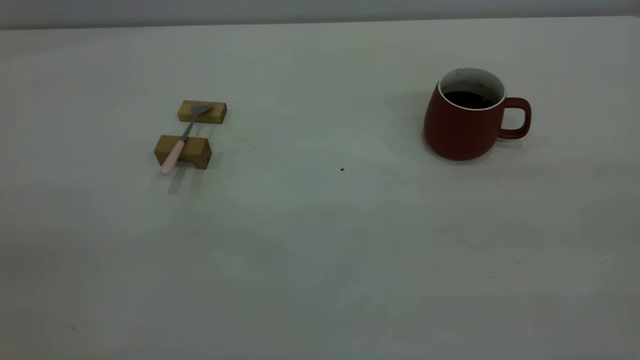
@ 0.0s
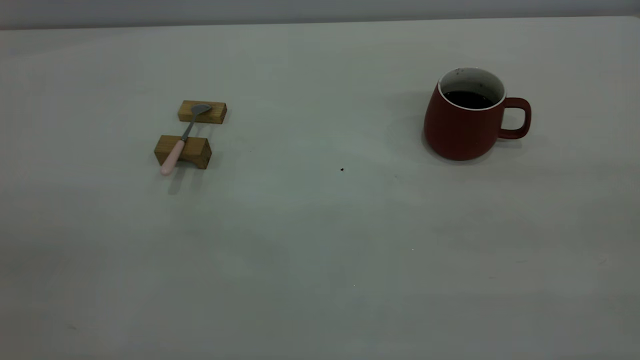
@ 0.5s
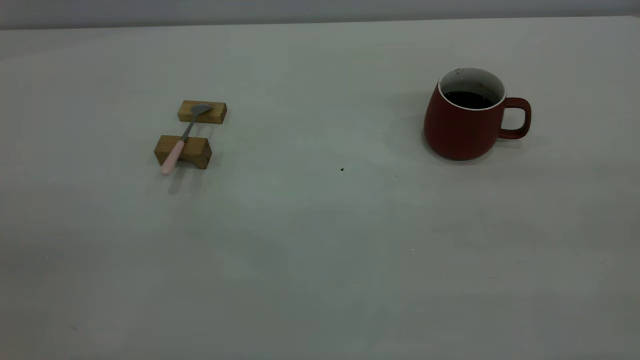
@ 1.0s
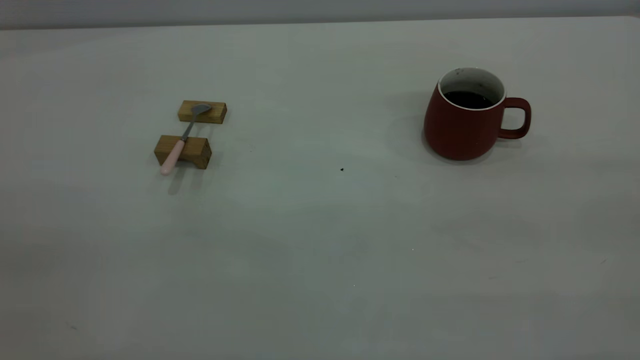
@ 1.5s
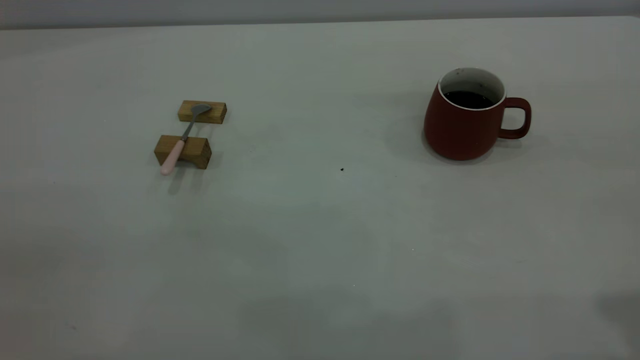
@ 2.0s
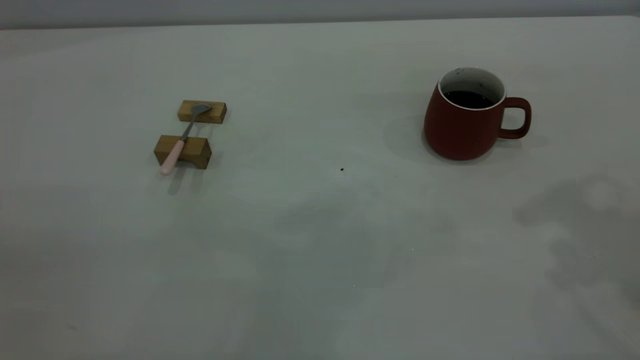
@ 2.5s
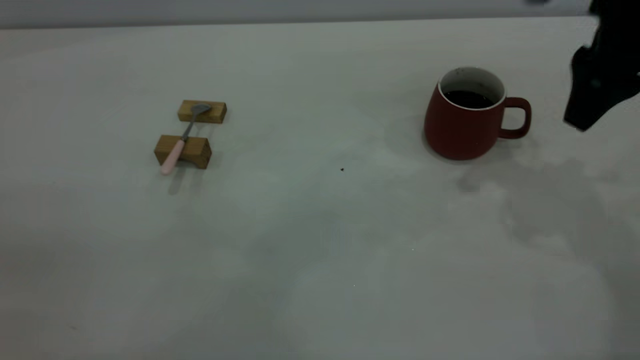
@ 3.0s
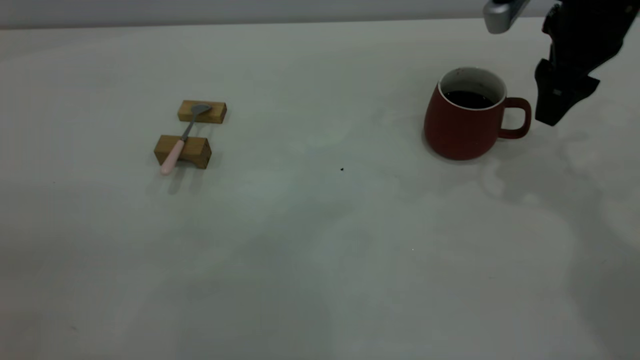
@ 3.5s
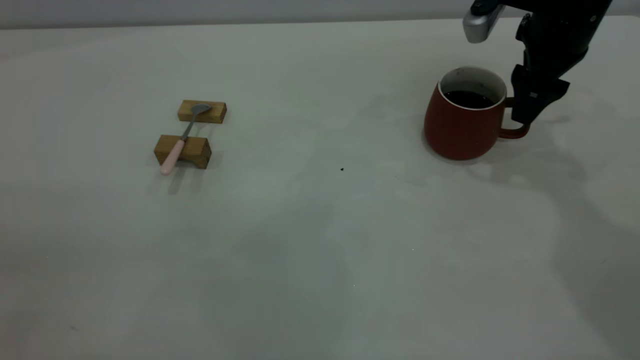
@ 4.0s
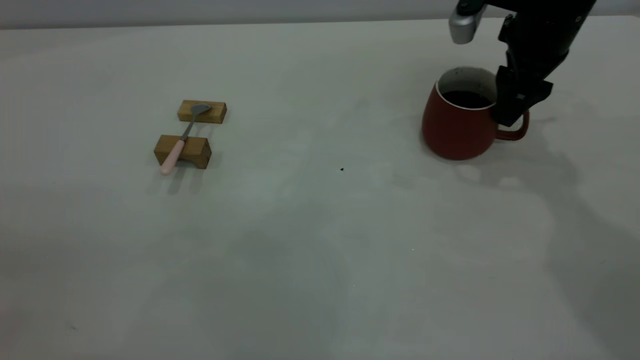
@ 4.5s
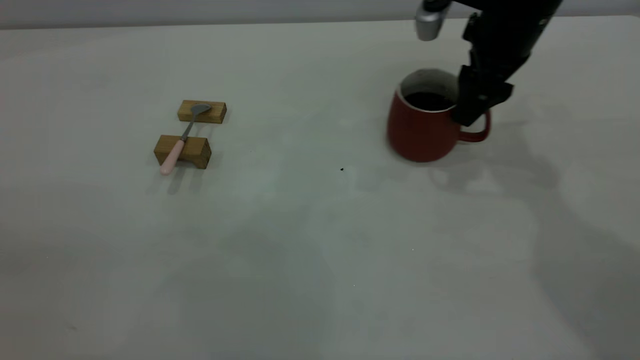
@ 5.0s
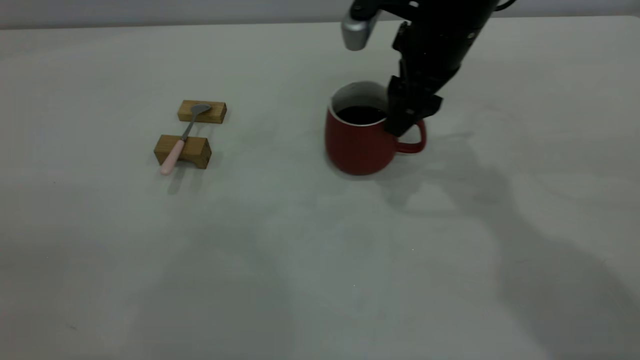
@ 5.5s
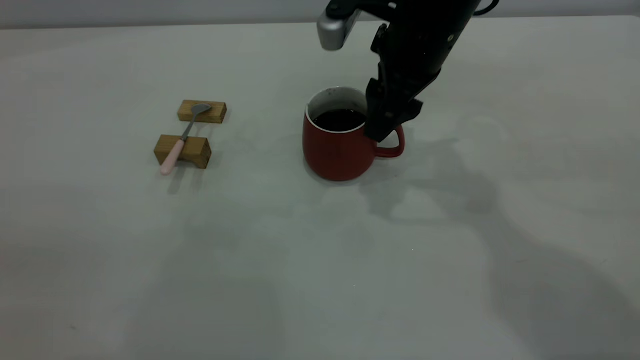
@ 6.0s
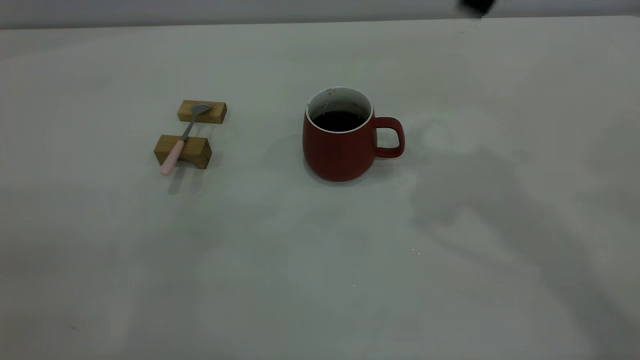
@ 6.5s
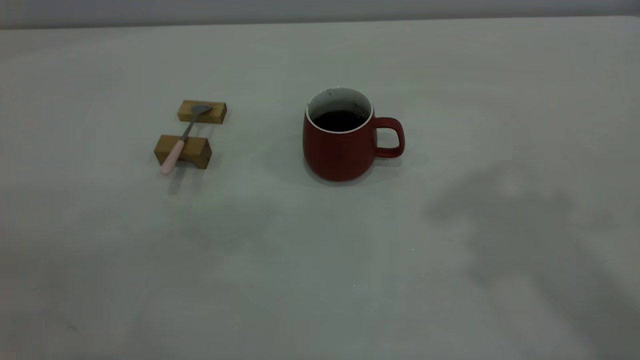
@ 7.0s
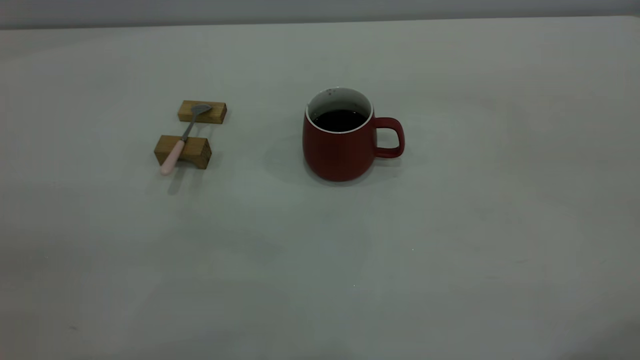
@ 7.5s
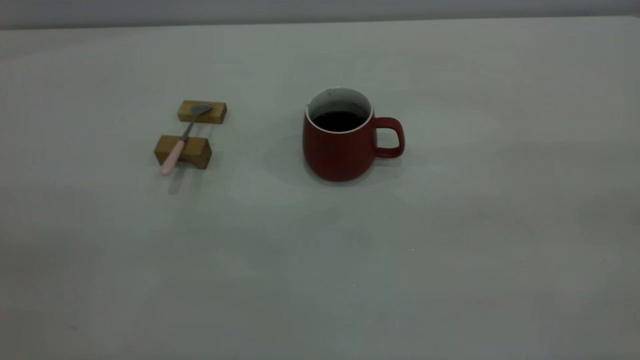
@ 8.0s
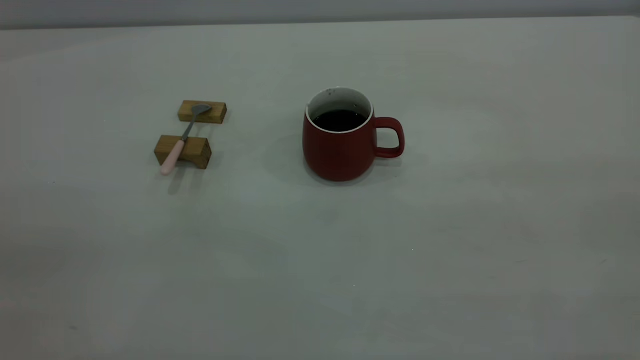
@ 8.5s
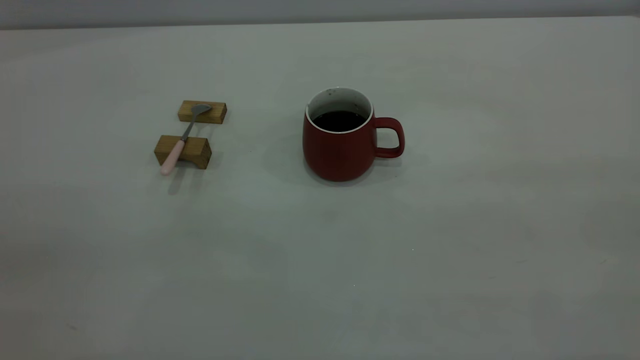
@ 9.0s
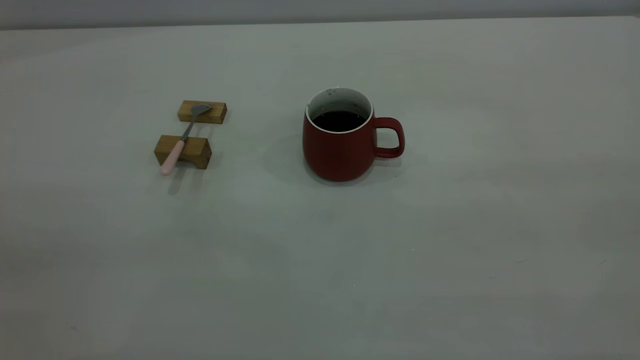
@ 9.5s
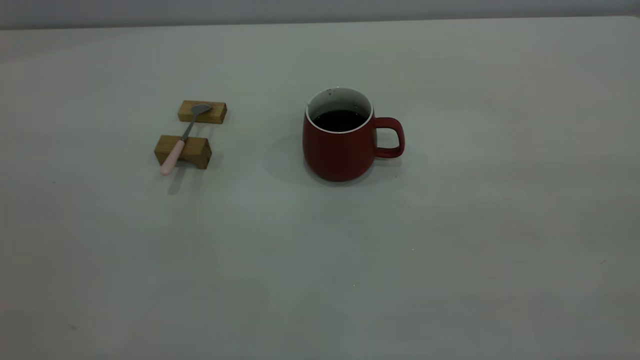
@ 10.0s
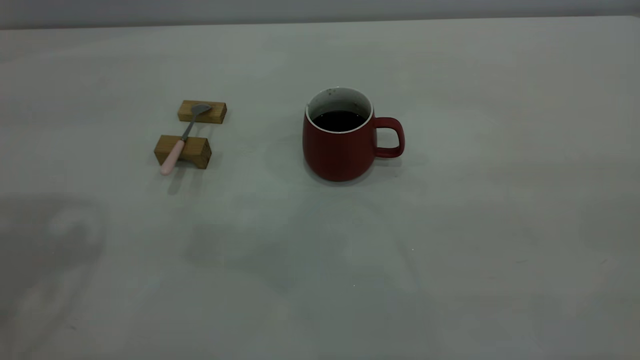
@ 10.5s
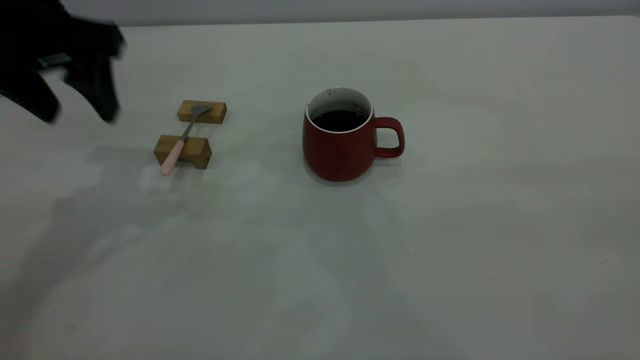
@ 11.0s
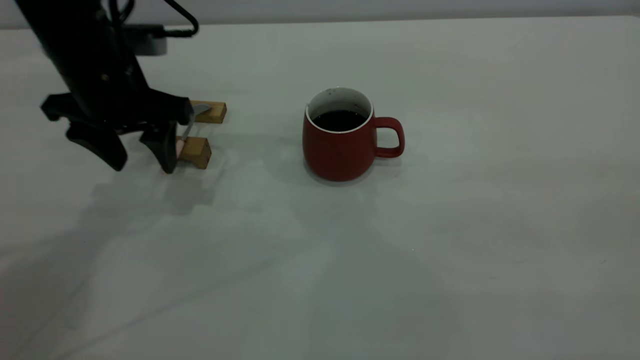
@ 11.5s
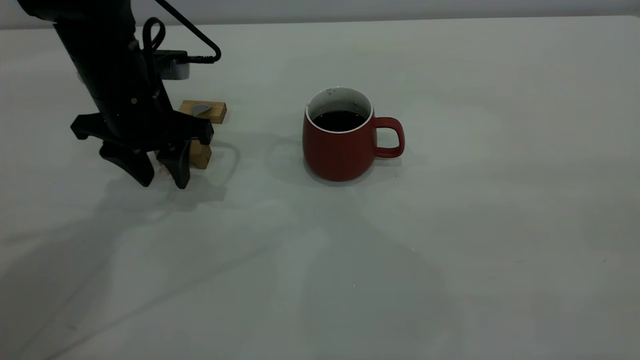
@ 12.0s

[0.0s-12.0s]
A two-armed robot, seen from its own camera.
Step, 0.0s to 6.0s: Move the cup with coffee to the center of view.
2.0s to 4.0s: The right gripper moves forward and downward, approximately 35 cm.
4.0s to 6.0s: The right gripper is displaced to the left by approximately 15 cm.
6.0s to 8.0s: The right gripper is displaced backward, upward and to the right by some 50 cm.
10.0s to 12.0s: The left gripper is displaced forward and downward by about 40 cm, and closes.

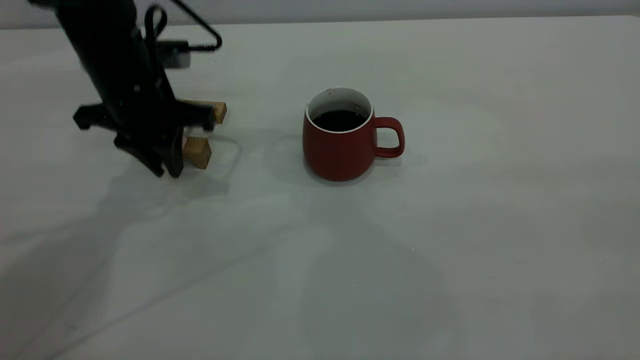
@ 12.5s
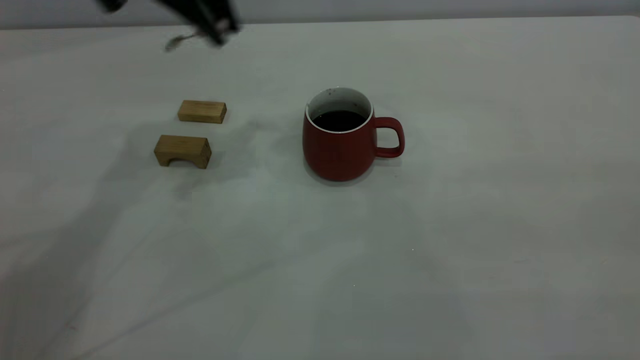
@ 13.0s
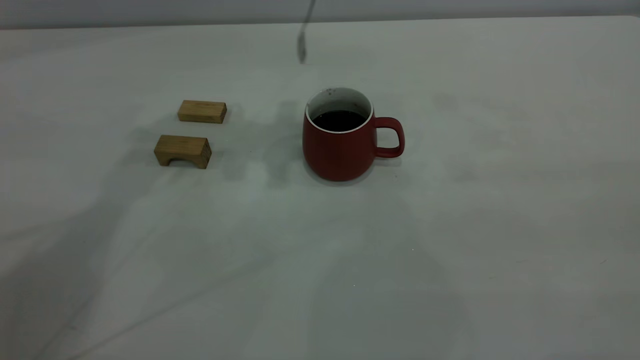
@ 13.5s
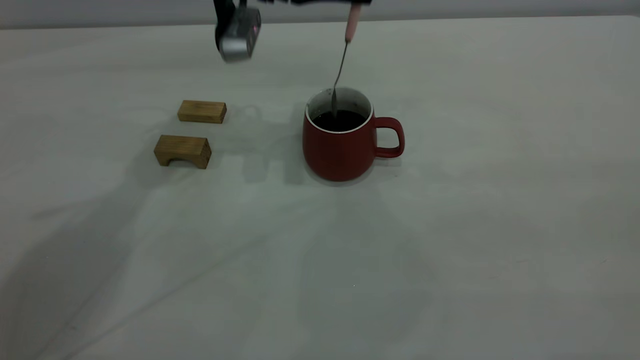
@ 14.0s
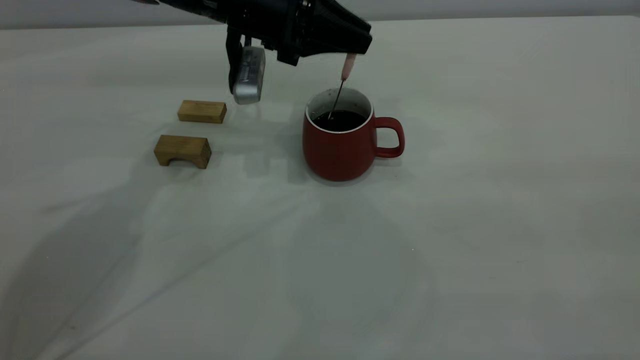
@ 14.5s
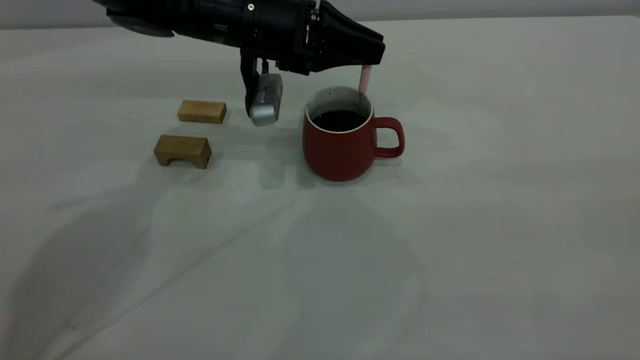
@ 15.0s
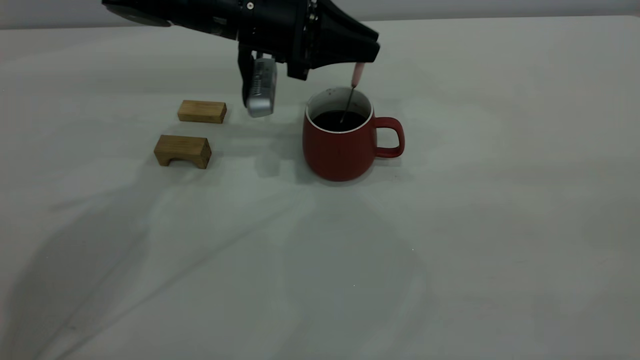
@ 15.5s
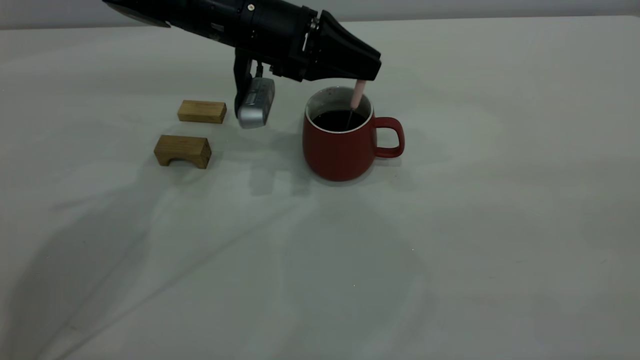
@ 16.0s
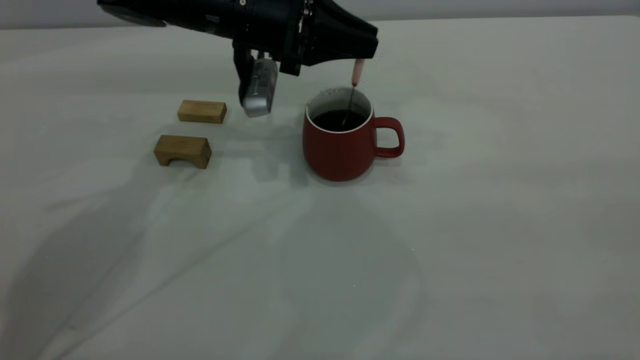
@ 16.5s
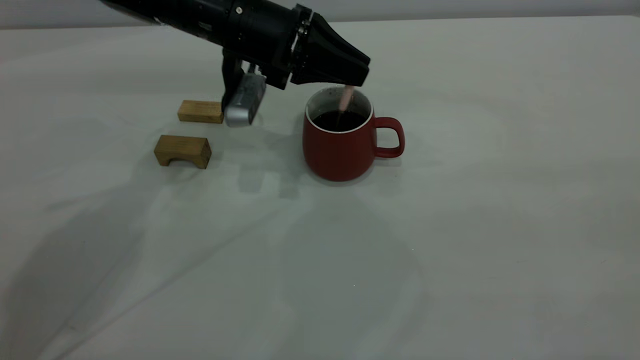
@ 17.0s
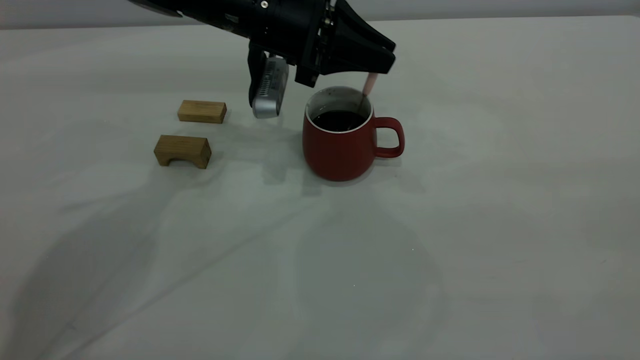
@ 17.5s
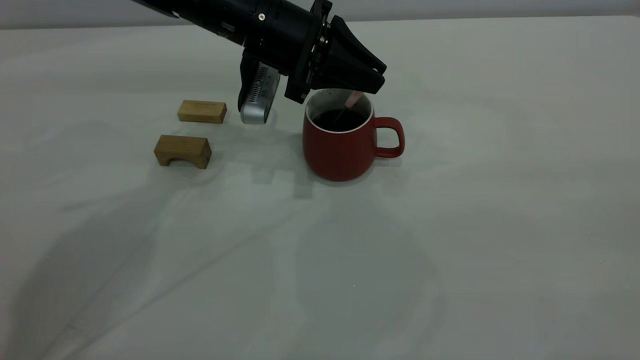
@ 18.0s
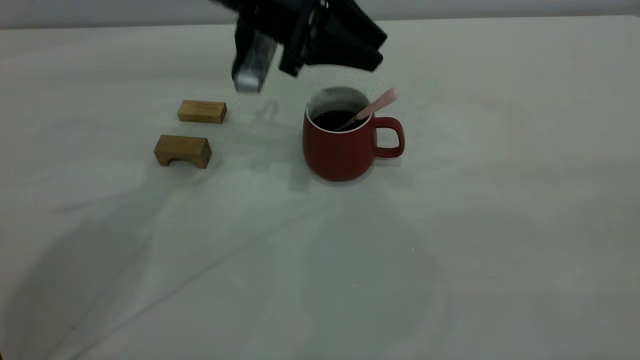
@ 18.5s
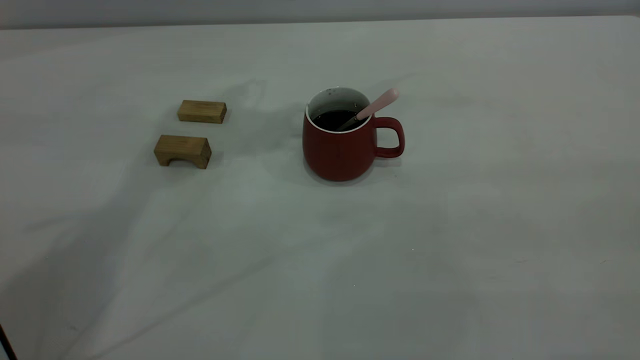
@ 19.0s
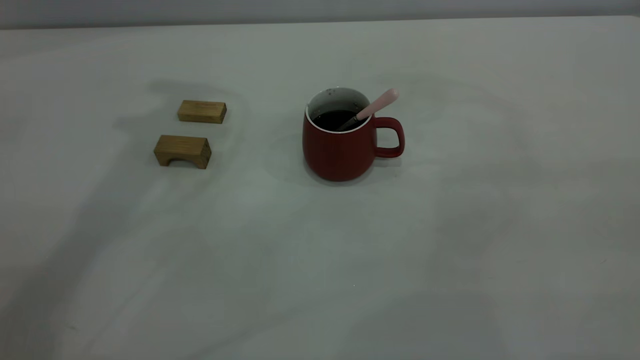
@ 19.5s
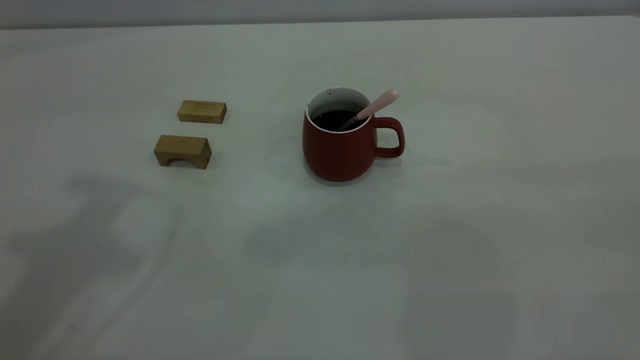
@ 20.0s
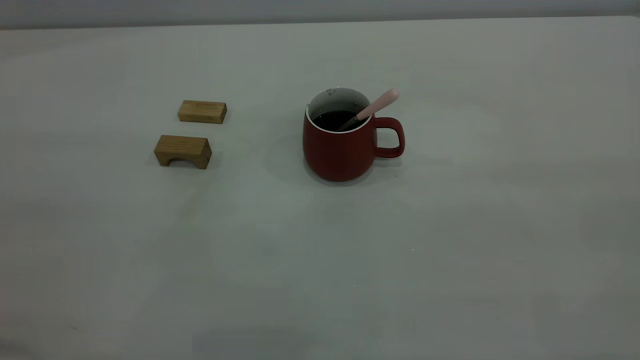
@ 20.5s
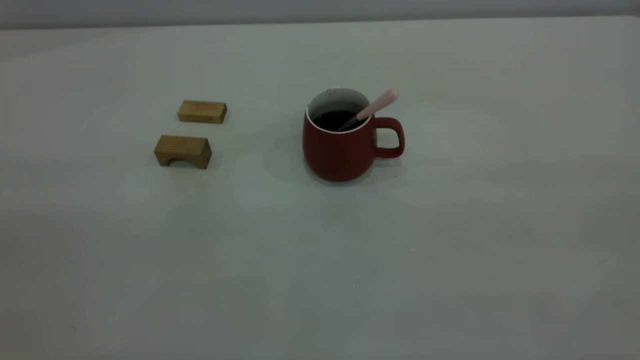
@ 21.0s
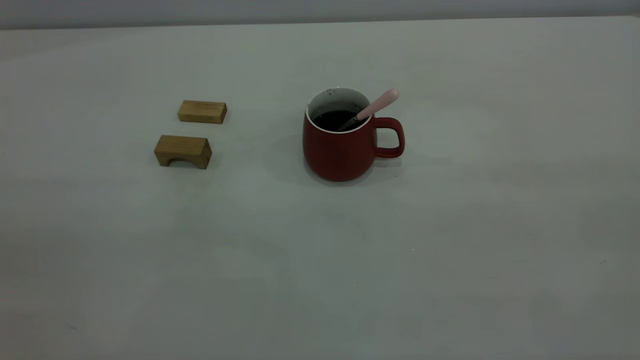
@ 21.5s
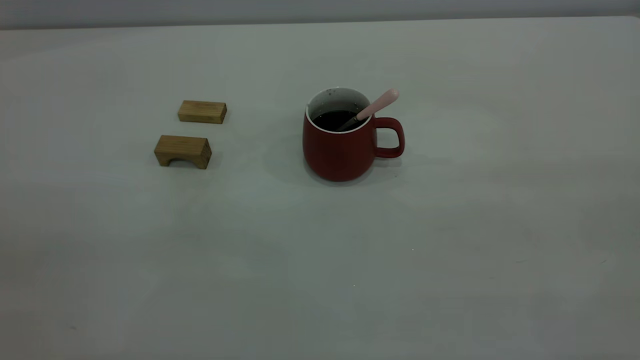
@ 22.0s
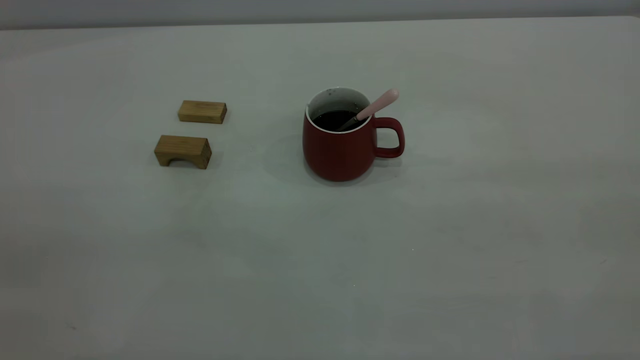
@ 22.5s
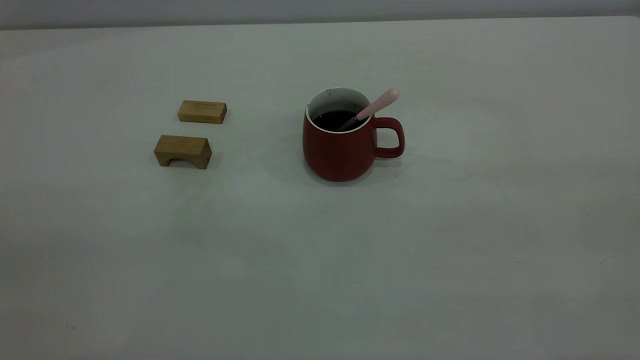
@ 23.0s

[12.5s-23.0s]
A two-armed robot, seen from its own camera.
Step, 13.0s to 18.5s: Stir the coffee in the cup.
12.5s to 14.5s: The left gripper heads to the right and forward, covering about 10 cm, and reaches about 15 cm upward, then returns.
14.5s to 16.5s: The grippers stay close to where they were, moving slightly.
16.5s to 19.0s: The left gripper shifts some 20 cm upward, and opens its fingers.
